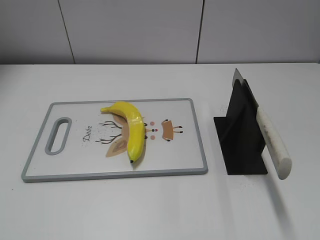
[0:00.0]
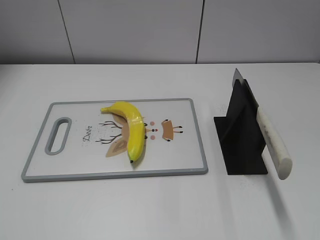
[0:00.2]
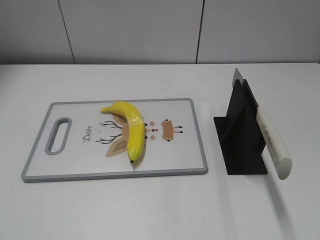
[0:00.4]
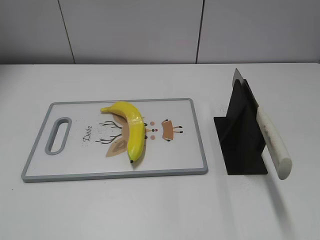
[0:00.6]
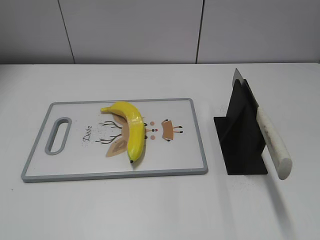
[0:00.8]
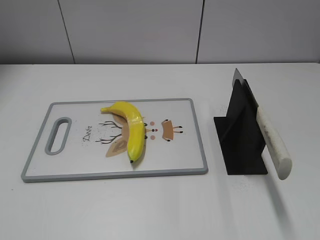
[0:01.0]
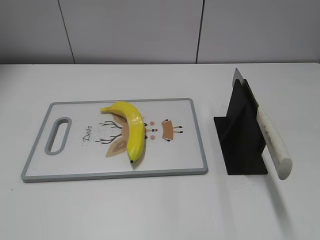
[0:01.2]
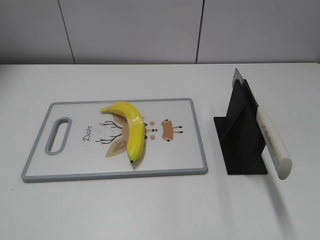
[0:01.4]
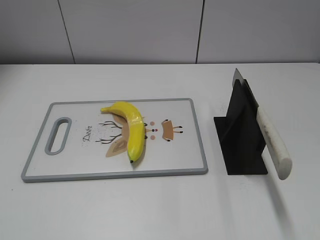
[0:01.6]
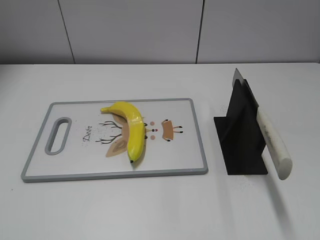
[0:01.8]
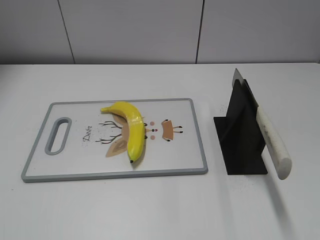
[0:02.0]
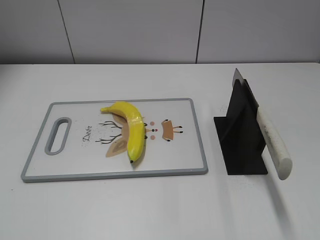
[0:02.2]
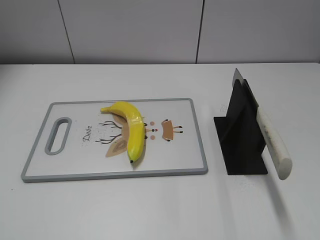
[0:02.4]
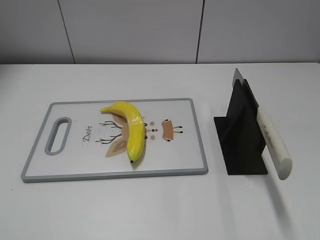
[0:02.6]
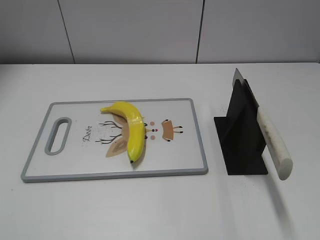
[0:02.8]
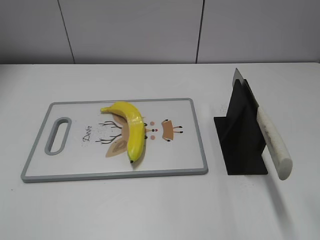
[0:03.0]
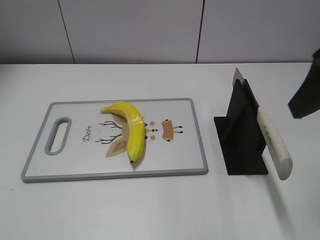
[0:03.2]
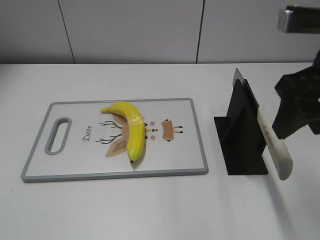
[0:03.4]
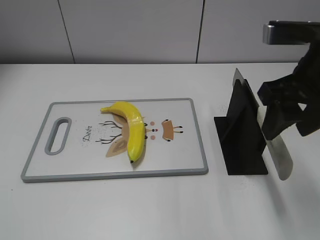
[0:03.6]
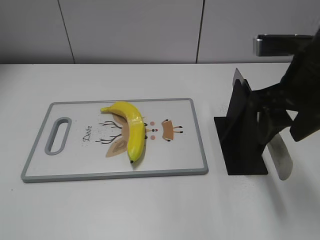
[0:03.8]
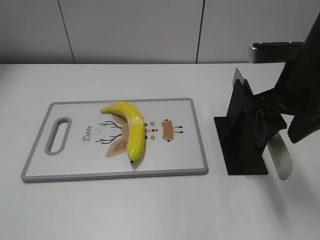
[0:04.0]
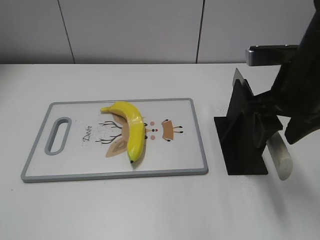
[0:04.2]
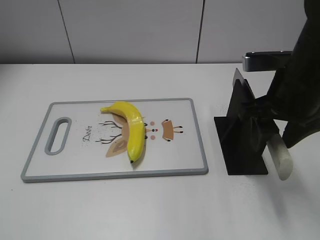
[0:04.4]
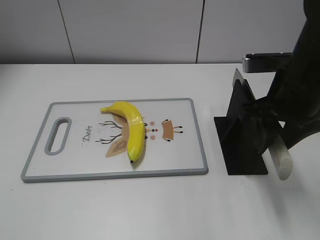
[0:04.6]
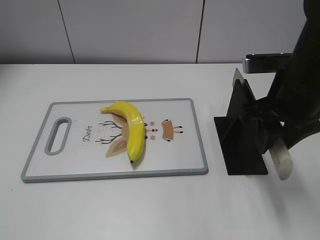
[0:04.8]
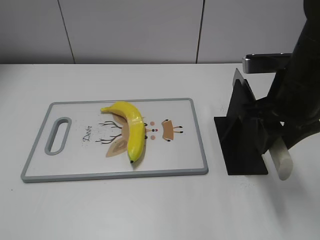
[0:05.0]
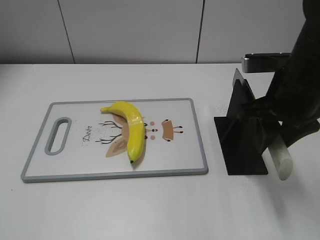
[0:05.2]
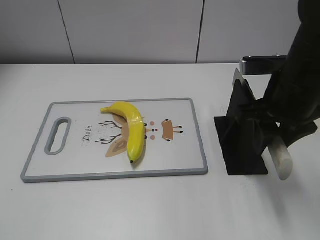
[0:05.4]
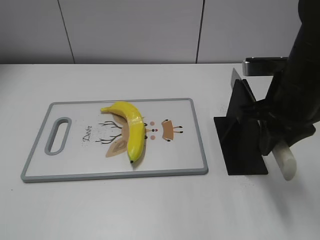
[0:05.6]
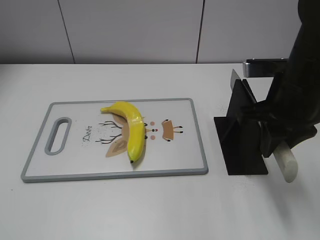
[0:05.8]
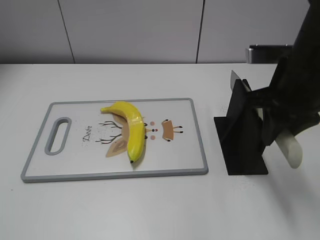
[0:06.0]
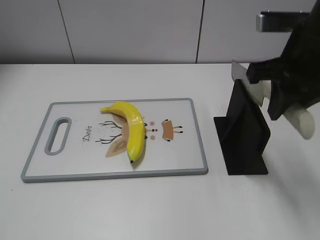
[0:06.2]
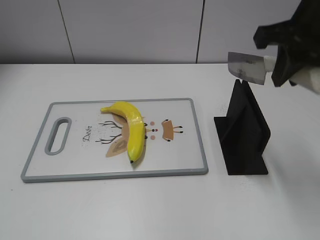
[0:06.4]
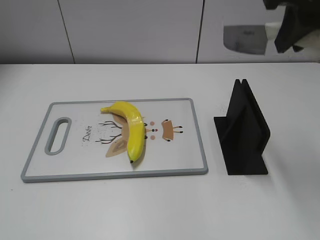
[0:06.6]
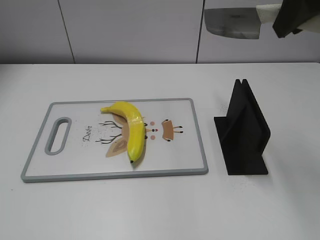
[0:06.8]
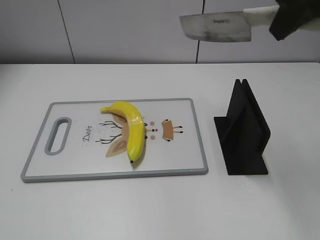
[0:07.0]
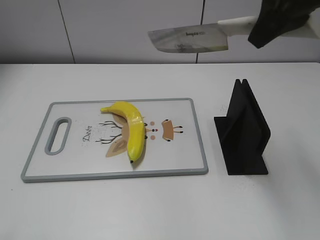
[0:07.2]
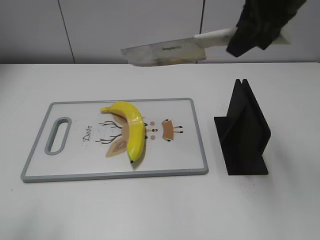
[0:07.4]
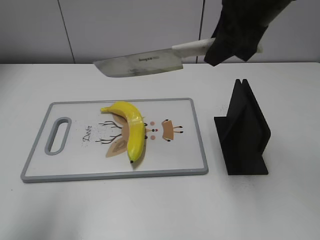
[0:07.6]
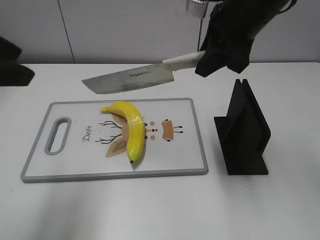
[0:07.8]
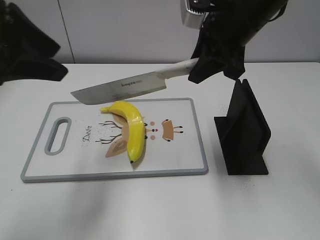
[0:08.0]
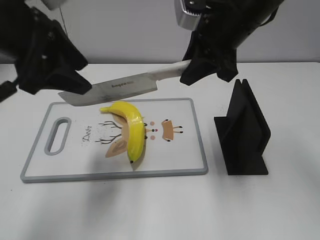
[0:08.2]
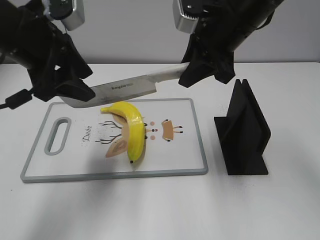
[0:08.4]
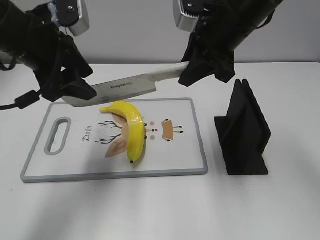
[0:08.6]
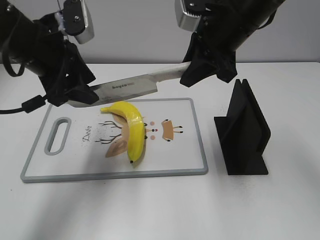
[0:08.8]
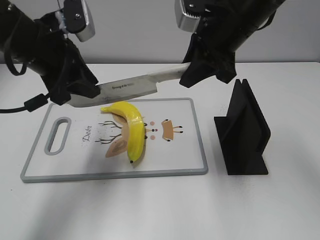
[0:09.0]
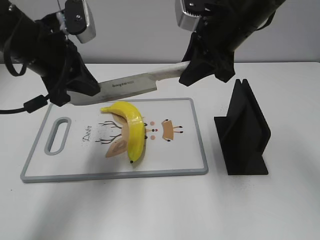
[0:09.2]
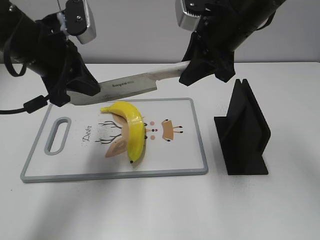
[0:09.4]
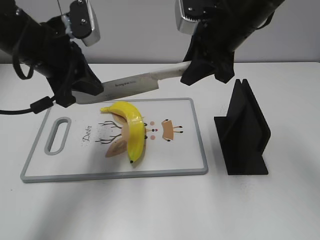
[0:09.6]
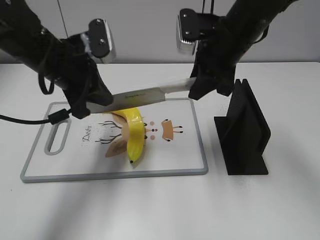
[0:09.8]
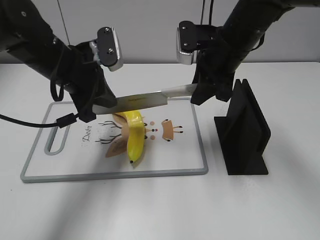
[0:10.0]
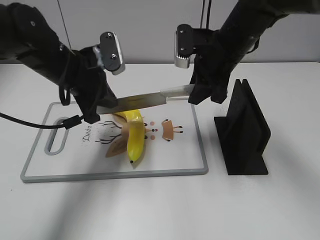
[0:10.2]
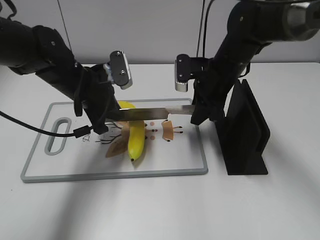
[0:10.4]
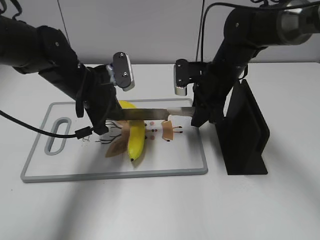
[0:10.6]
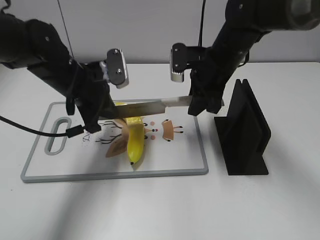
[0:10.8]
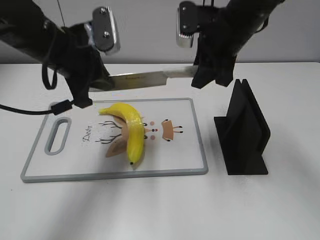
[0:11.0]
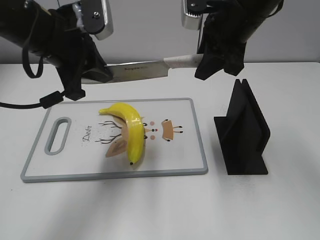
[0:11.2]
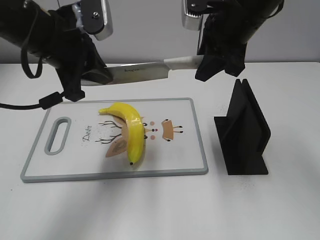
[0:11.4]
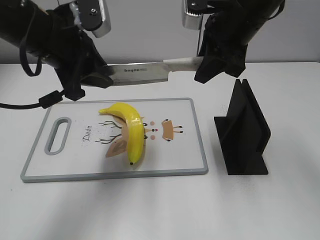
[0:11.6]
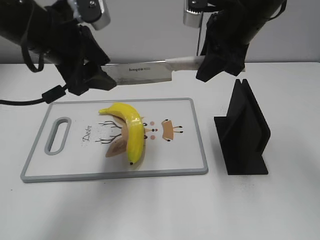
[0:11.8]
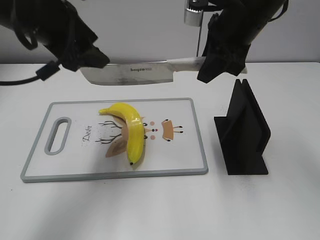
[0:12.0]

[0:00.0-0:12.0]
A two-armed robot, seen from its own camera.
Task of the whole recording: cut plastic banana.
Step, 0:00.0 to 0:07.0: Grab the knife handle with your right hand.
Step, 0:07.2 to 0:11.6: Hold the blade with your left hand.
0:03.0 to 0:04.4: The right gripper goes about 15 cm downward, forward and to the left.
0:04.4 to 0:06.0: The right gripper closes its fingers.
0:06.0 to 0:07.6: The right gripper heads upward and forward, covering roughly 10 cm; the left gripper travels forward and upward by some 20 cm.
0:07.6 to 0:09.0: The left gripper heads forward, to the right and downward, covering roughly 20 cm, and closes, while the right gripper changes place by about 5 cm.
0:09.0 to 0:10.4: The two grippers go roughly 10 cm downward. The left gripper closes up.
0:10.4 to 0:12.0: Both grippers travel together upward, about 15 cm. The left gripper opens up.

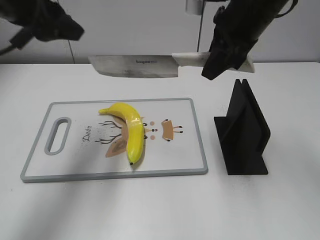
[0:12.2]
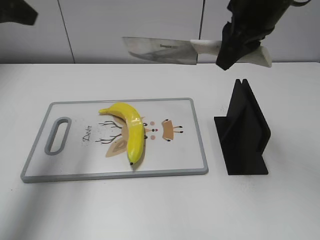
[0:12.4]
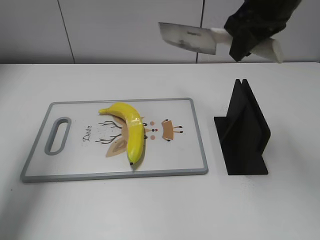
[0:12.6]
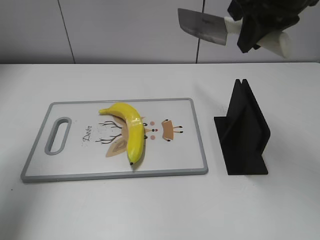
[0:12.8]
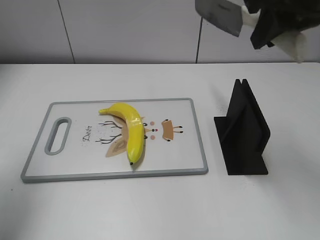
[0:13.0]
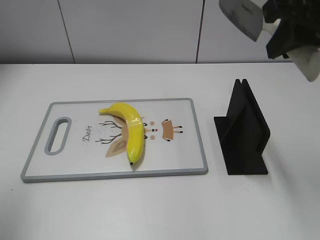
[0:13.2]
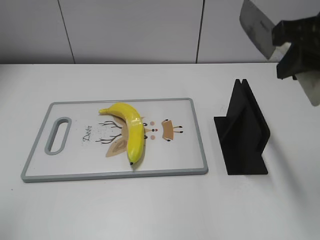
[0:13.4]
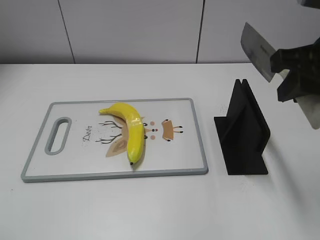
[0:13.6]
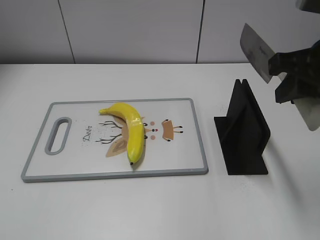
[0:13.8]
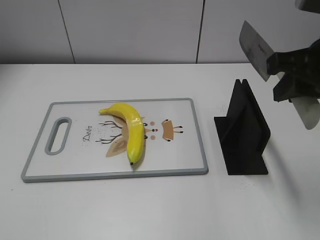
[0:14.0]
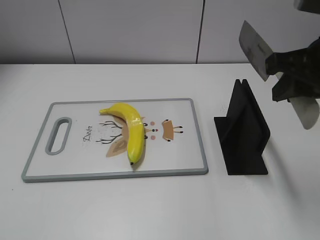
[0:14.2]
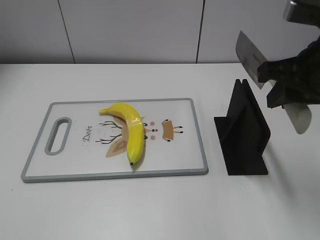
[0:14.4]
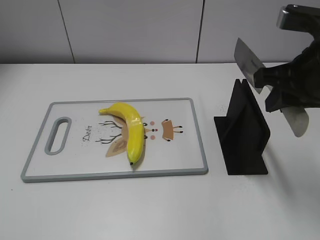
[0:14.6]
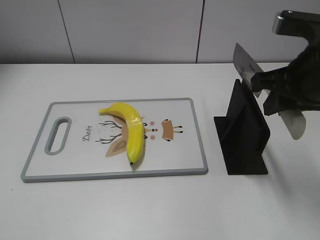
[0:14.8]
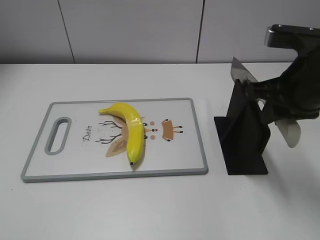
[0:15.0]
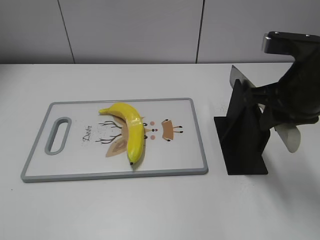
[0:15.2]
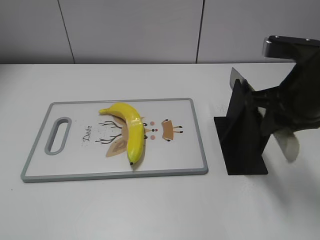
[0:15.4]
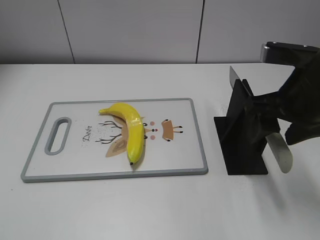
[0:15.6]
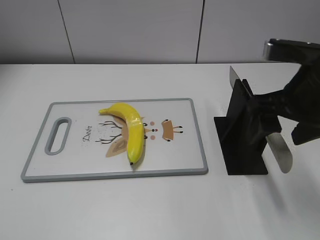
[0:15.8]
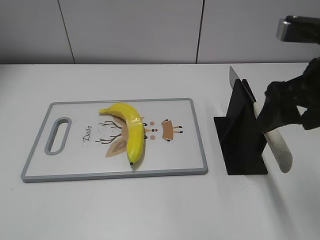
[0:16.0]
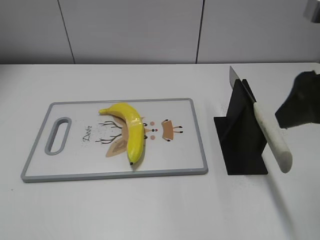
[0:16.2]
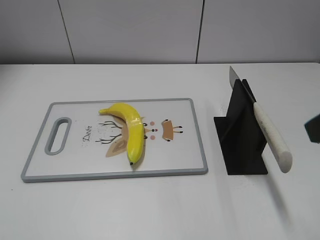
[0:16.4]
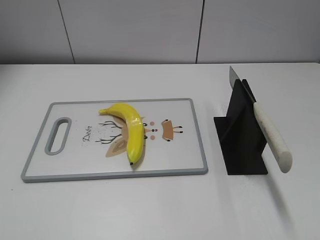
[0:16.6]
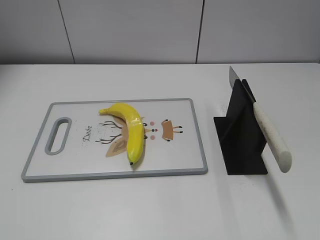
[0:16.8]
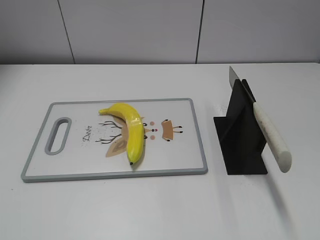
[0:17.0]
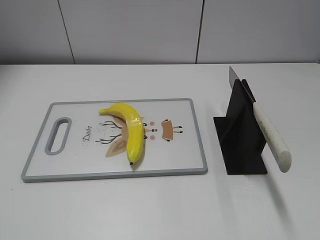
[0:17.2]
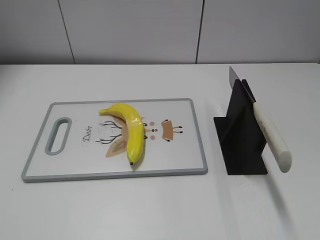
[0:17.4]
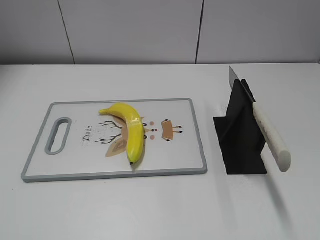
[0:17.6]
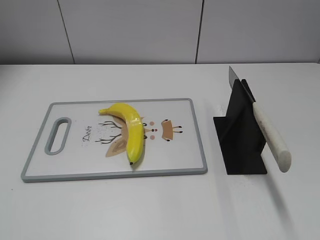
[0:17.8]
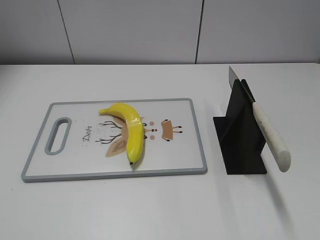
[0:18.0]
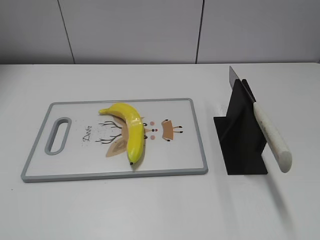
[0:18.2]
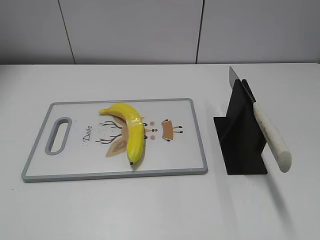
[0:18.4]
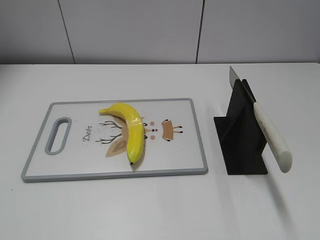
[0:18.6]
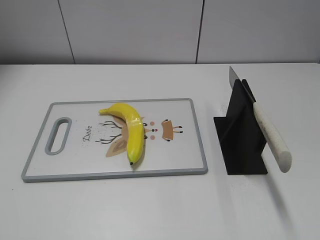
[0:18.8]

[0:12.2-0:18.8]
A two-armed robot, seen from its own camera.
Task of the whole recording: cut plastic banana.
Step, 0:12.2 to 0:13.2: Cut the banana with your right hand.
Step, 0:13.4 to 0:14.6: Secure the blade with your left hand.
Step, 0:15.0 to 0:18.8: Place the knife on the storage rack with your right hand.
0:12.2 to 0:13.8: The right gripper is displaced backward and to the right by some 15 cm, while the left gripper goes some 30 cm backward.
0:13.8 to 0:15.4: The right gripper travels downward by about 5 cm.
0:15.4 to 0:17.2: The right gripper travels backward and to the right by about 30 cm, and opens its fingers.

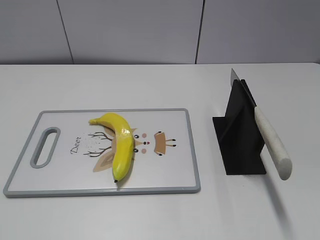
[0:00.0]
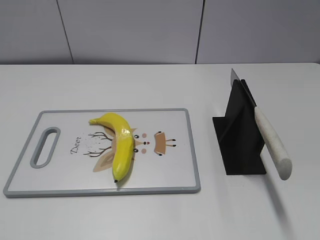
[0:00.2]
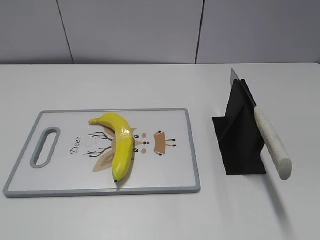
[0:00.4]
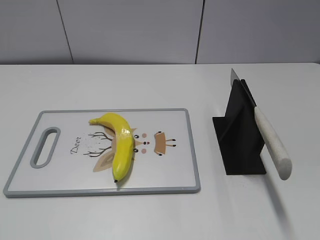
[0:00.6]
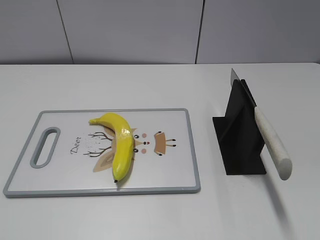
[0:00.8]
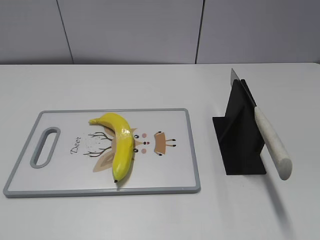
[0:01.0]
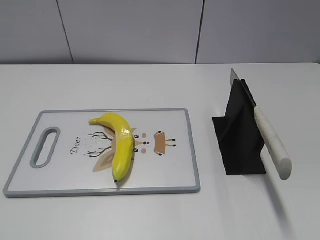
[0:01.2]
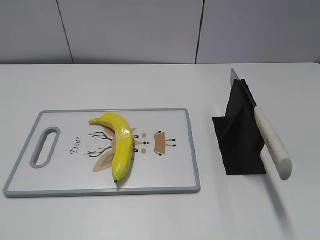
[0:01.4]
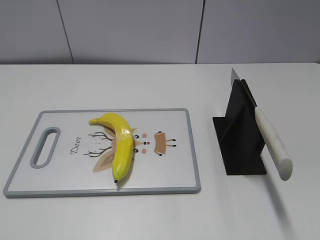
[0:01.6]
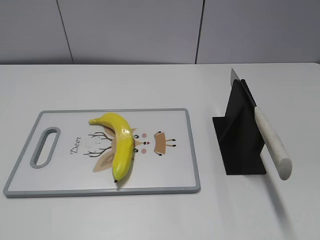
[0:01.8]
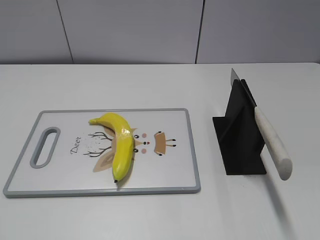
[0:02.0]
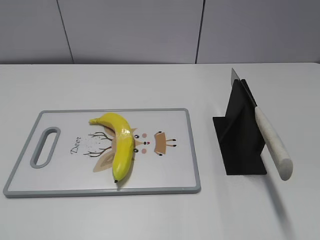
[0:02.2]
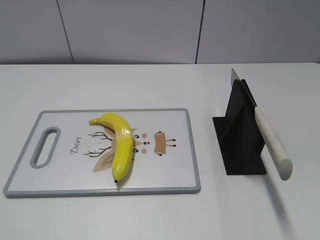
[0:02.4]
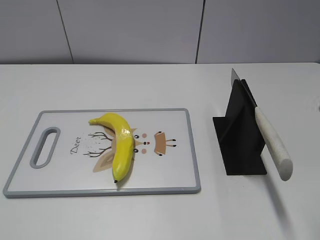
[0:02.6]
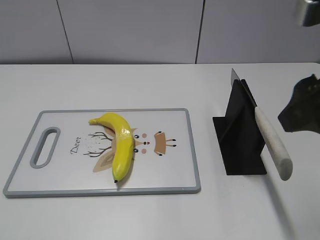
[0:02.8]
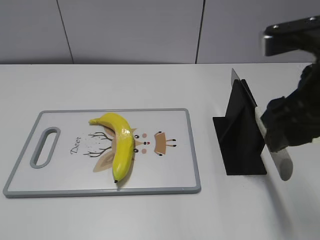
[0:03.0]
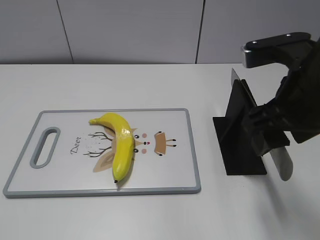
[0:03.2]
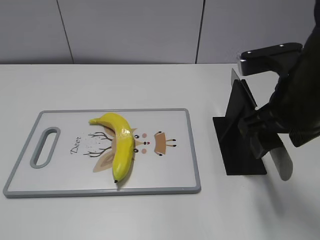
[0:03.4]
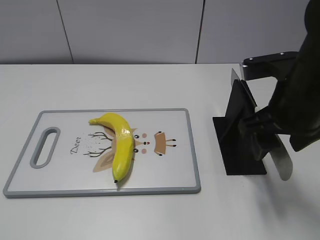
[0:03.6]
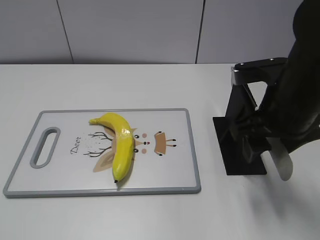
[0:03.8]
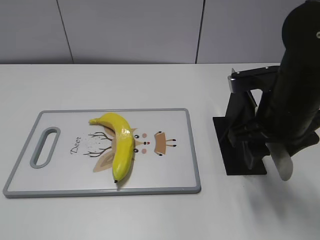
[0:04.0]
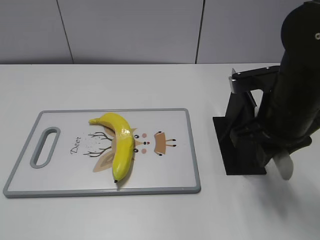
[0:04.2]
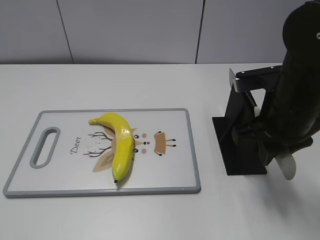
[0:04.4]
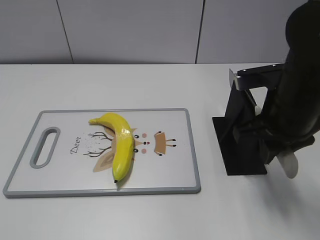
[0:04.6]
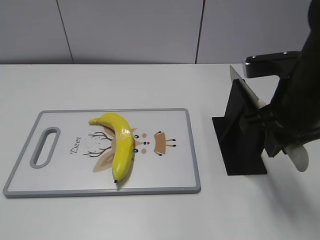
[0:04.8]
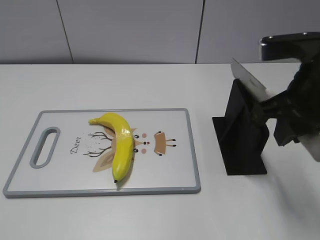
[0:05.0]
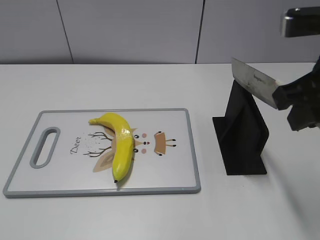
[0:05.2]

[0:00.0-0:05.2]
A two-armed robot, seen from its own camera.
Task of the whole recording: cut plastic banana.
0:01.8 to 0:03.4: The right gripper moves forward and to the left, about 25 cm.
0:03.4 to 0:05.2: The right gripper moves approximately 5 cm, and closes up.
